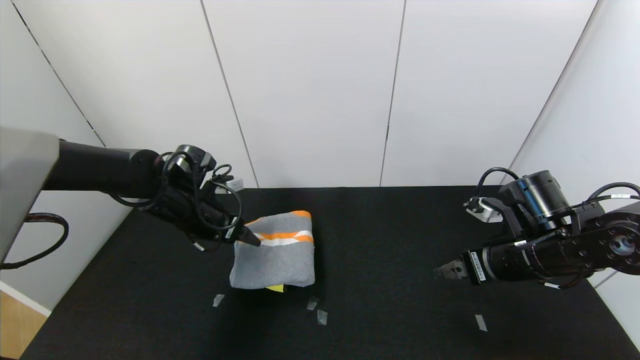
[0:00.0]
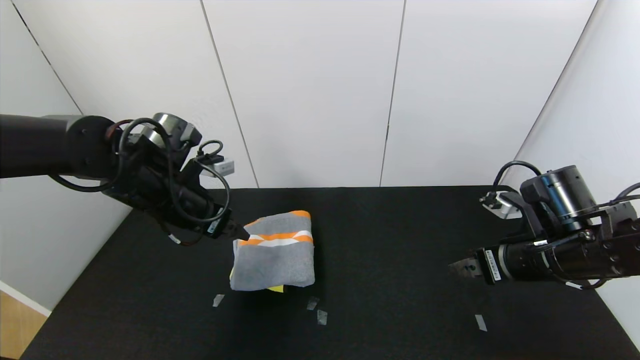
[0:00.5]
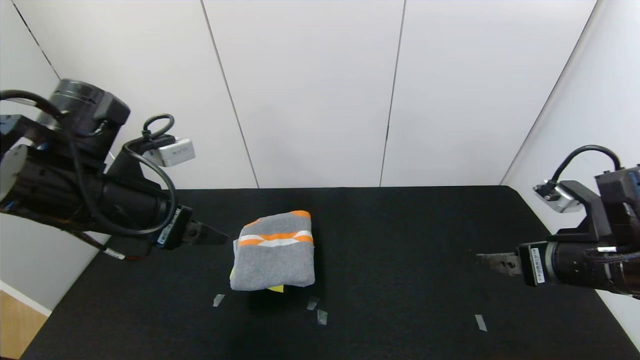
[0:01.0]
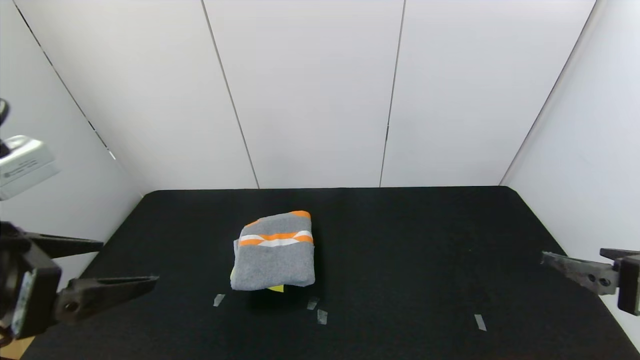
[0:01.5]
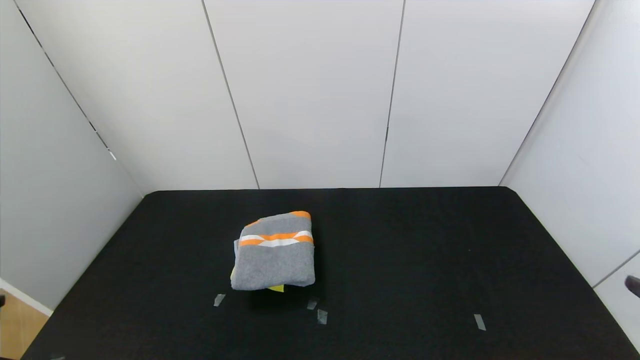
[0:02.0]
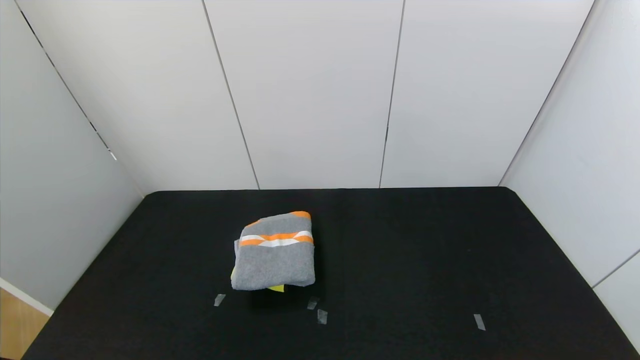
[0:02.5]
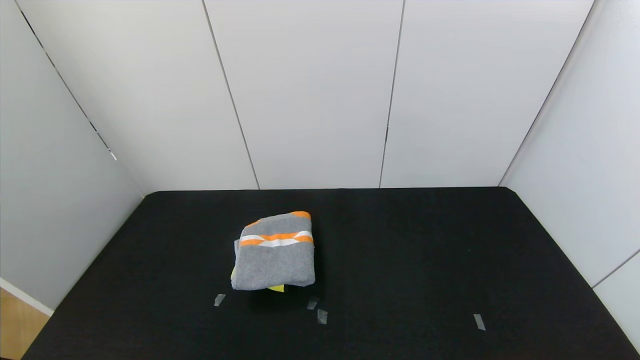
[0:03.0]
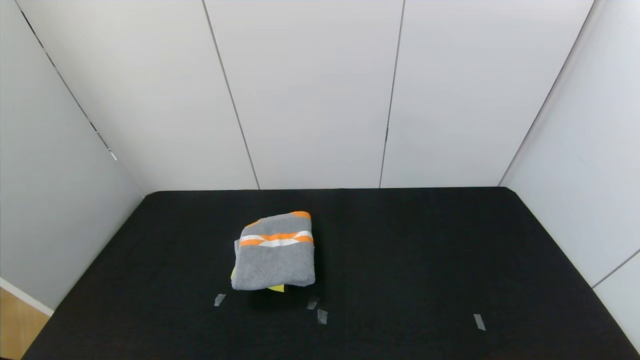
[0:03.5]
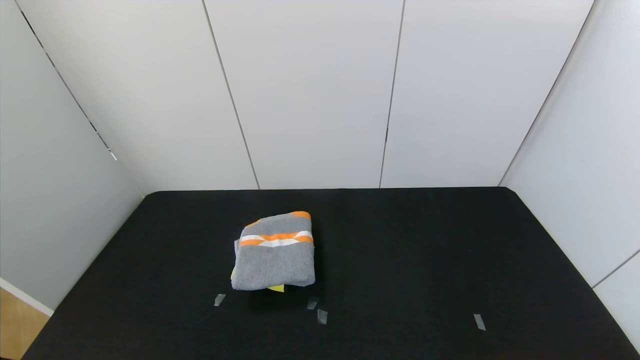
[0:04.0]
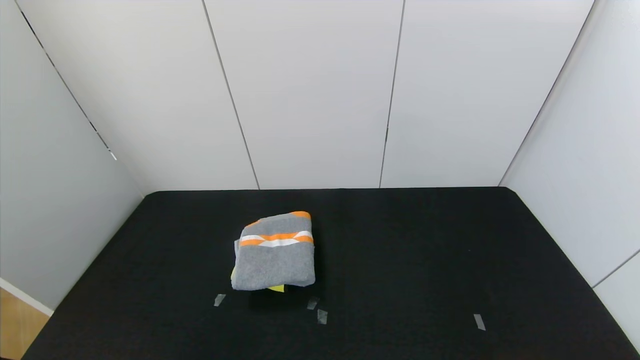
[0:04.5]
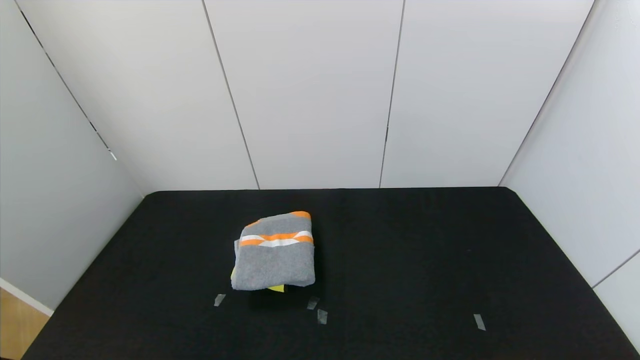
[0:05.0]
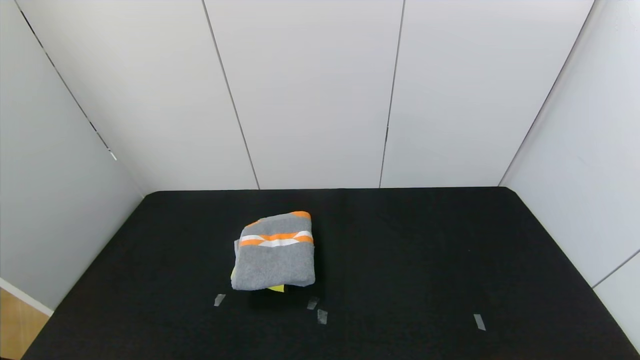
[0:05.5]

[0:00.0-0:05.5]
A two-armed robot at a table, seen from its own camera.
Task of the whole recording: Use the gripper to fold the yellow towel and grey towel in half twice,then put the yellow towel on the grey towel.
0:00.0 to 0:02.0: The left gripper travels backward by some 35 cm. The right gripper travels backward by approximately 25 cm.

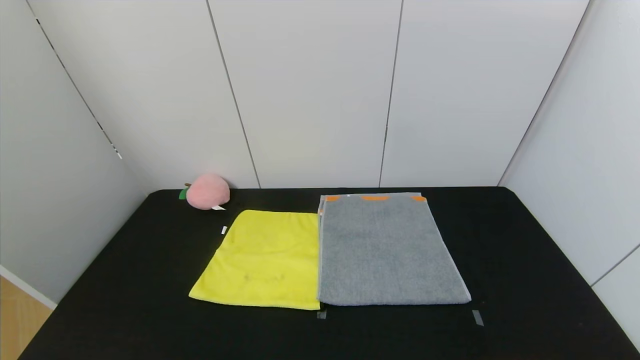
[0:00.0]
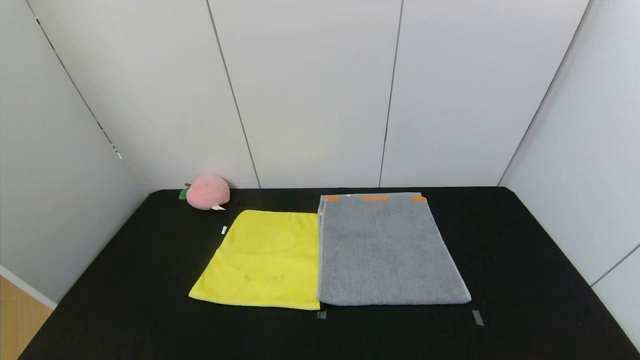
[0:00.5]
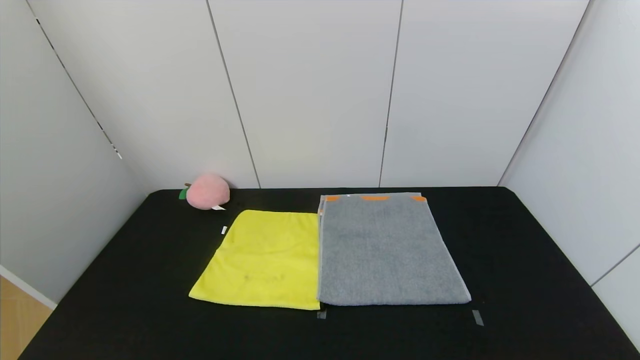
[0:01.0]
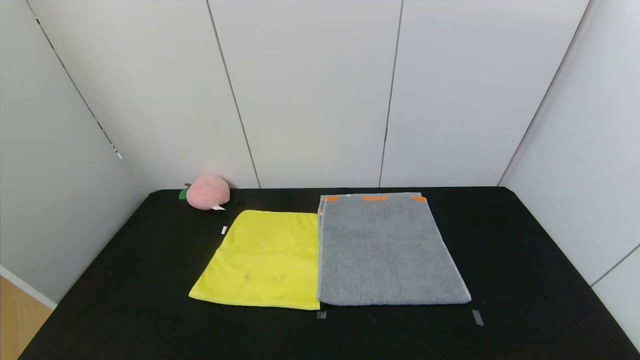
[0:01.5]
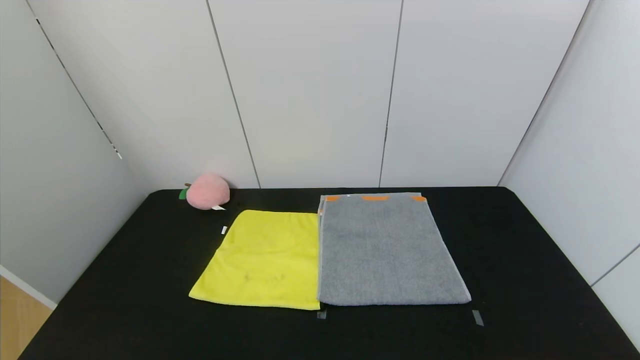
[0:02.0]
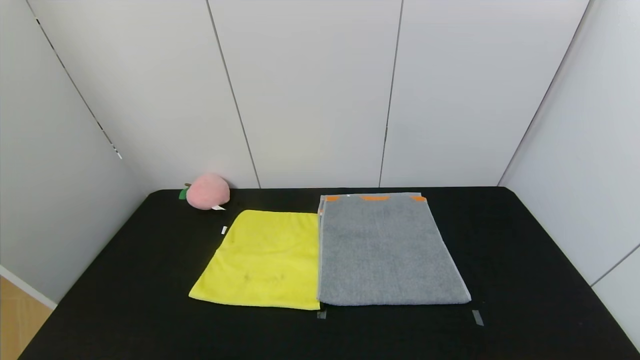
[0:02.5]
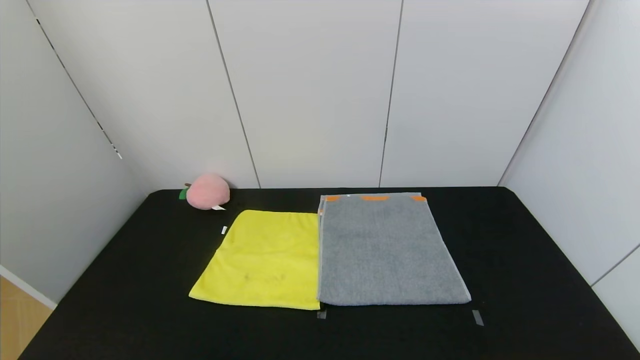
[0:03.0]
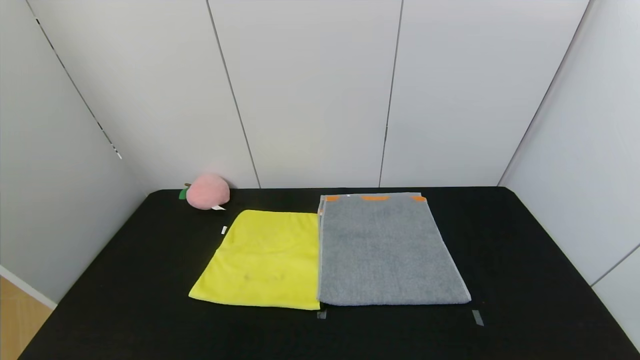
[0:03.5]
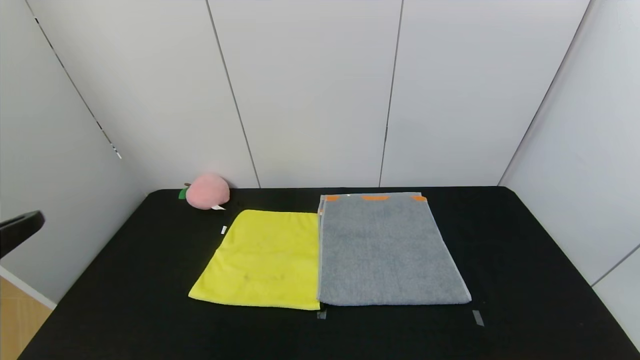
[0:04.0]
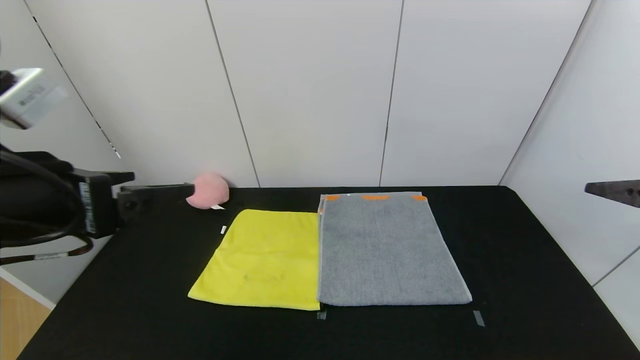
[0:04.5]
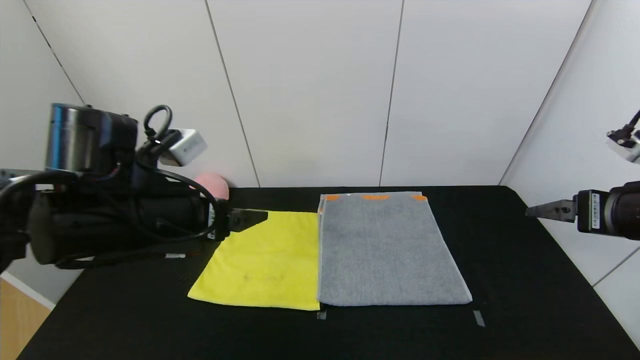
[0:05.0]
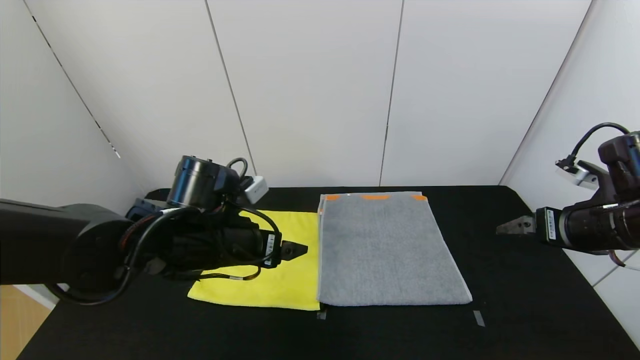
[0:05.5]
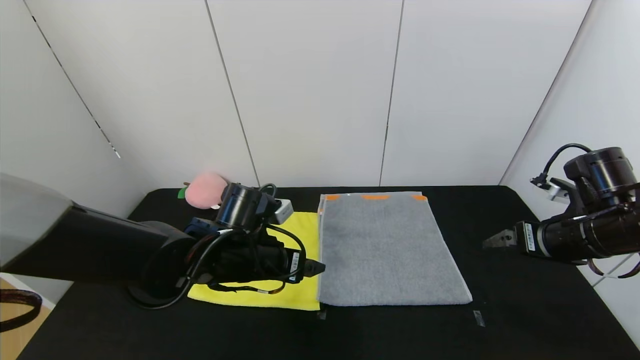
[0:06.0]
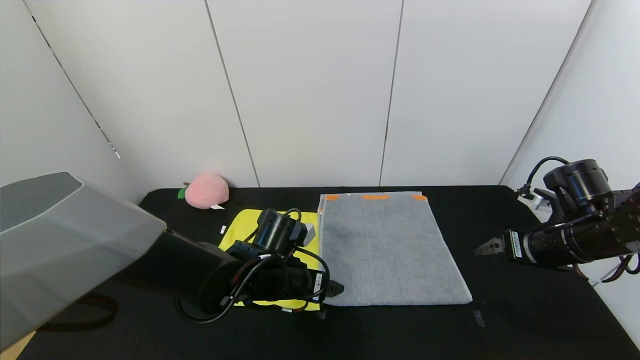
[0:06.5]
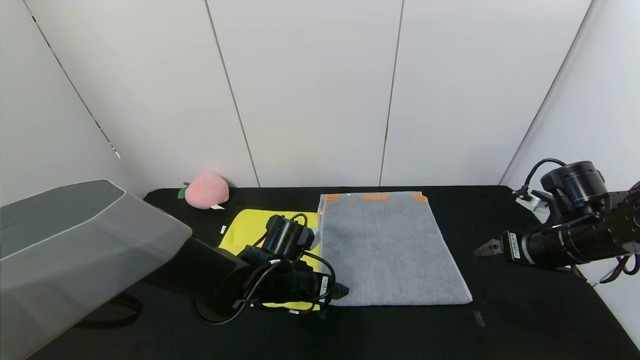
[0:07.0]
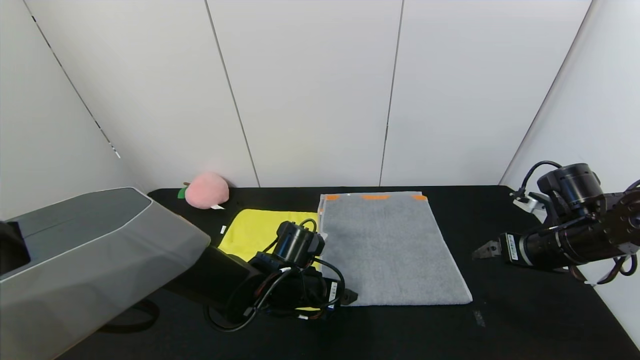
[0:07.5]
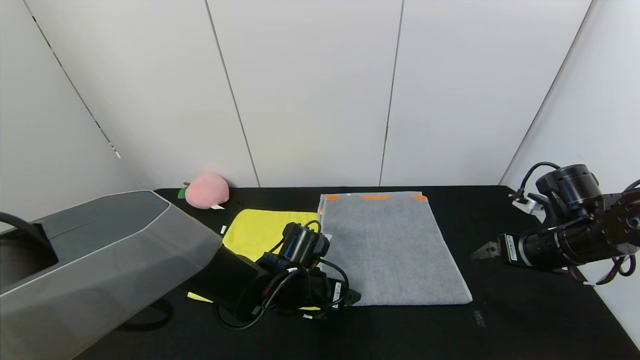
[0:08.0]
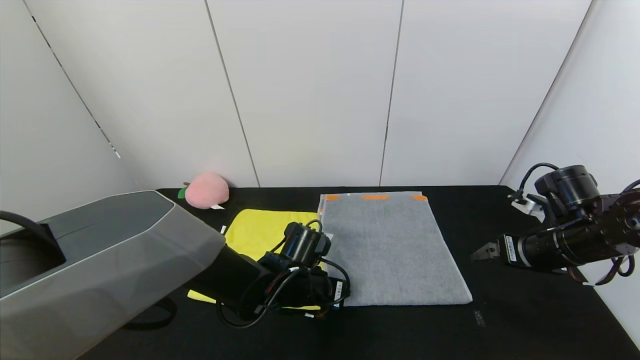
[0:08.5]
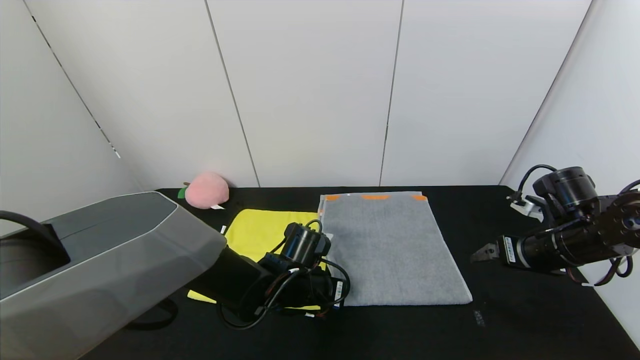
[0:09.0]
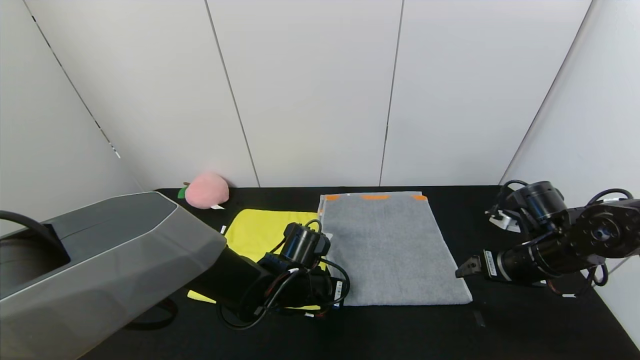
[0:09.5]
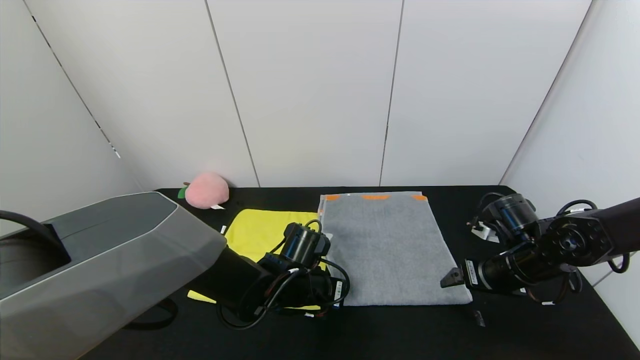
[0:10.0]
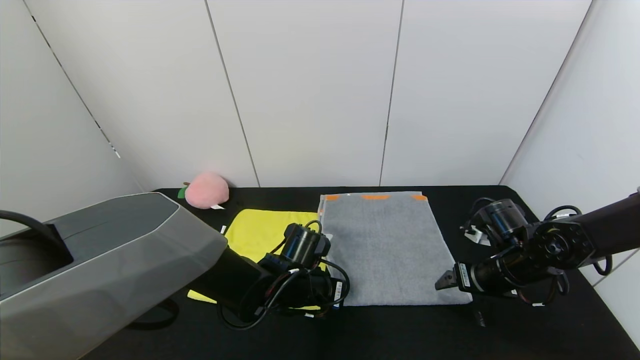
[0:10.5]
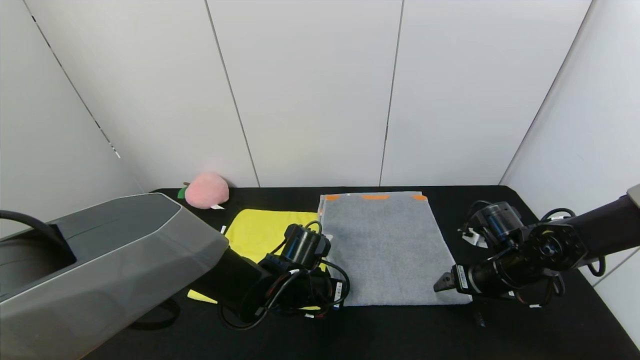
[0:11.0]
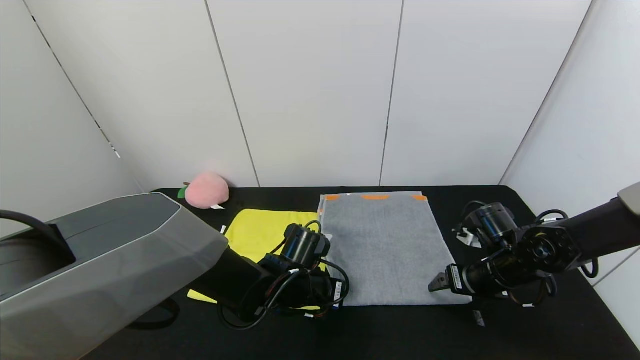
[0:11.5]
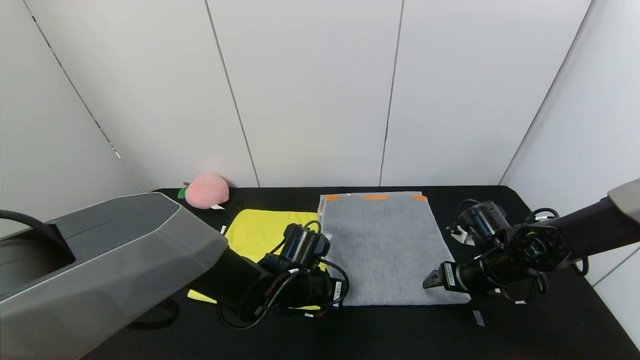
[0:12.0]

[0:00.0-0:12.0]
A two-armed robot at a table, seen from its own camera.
Task of the whole recording: Use the gripper to fold the yellow towel and grey towel in half twice,then put the yellow towel on the grey towel.
0:04.0 to 0:06.0: The right gripper goes some 25 cm forward and downward, while the left gripper travels forward, downward and to the right by about 35 cm.
0:06.0 to 0:08.0: The left gripper moves downward and to the right, approximately 10 cm.
0:08.0 to 0:10.0: The left gripper closes up, while the right gripper goes some 5 cm downward.
0:10.0 to 0:12.0: The grippers make only small movements.

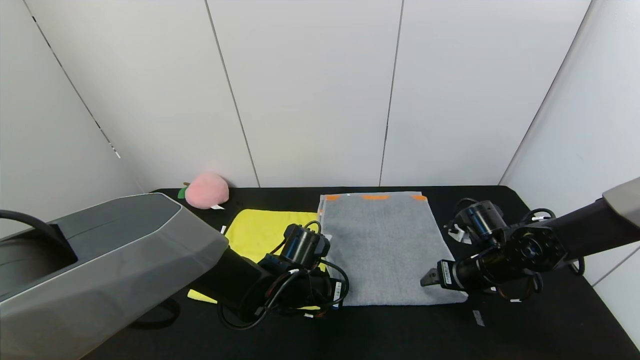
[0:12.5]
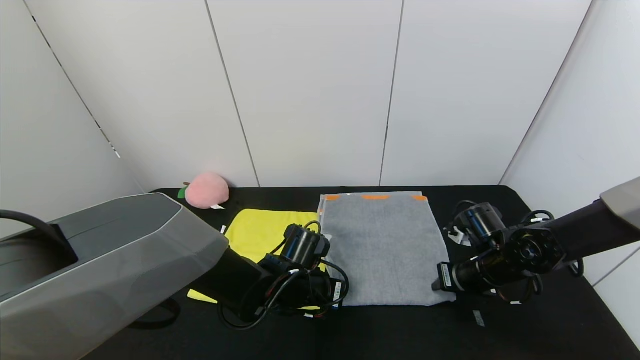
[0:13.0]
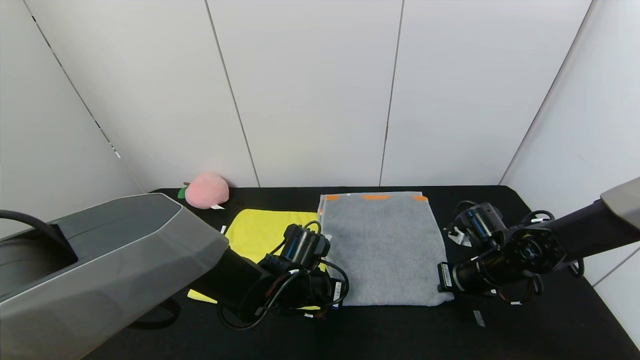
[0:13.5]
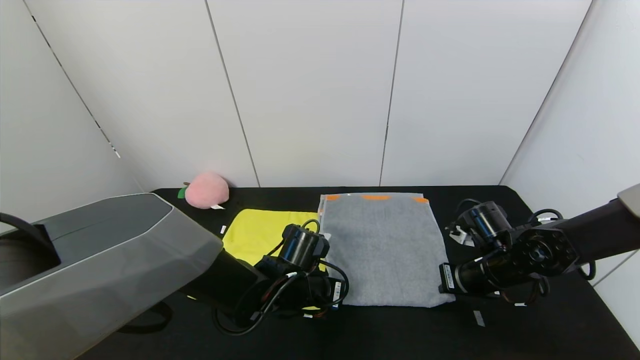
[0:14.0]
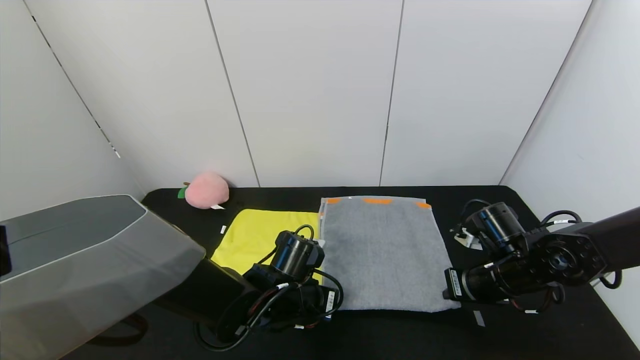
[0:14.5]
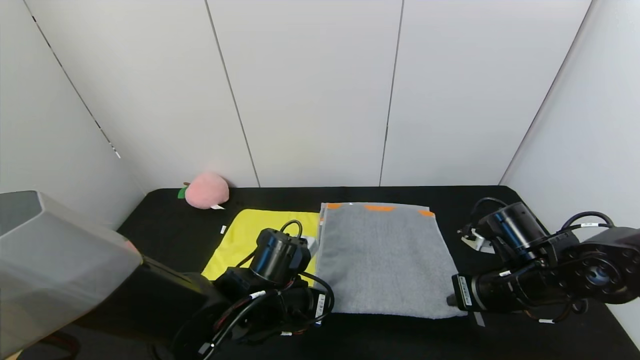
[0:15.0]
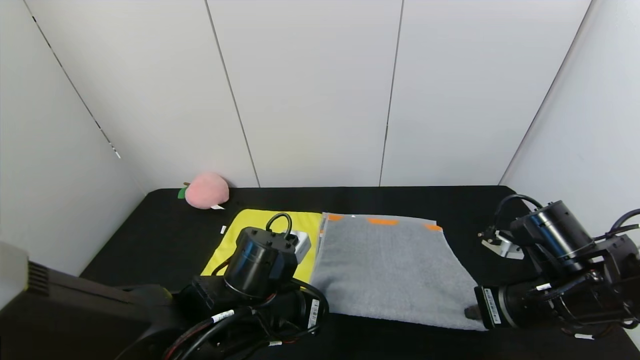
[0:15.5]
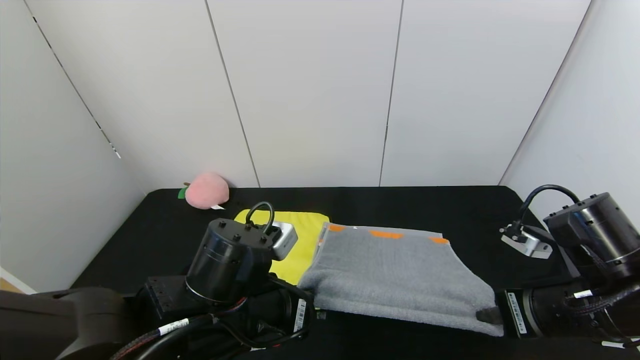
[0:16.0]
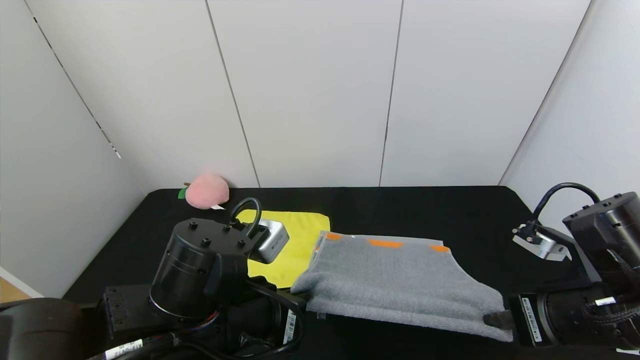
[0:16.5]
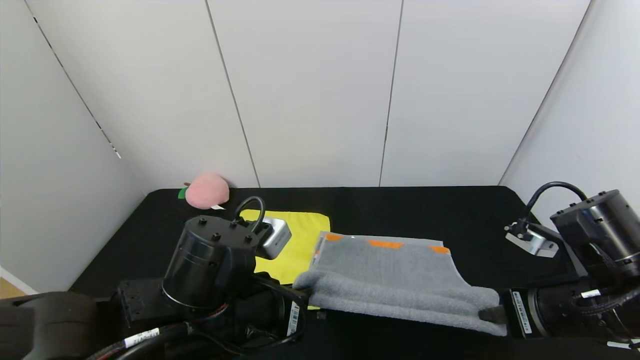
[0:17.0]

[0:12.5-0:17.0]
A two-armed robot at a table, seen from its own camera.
Task of the whole recording: Use the gripper to fold the yellow towel and grey towel in half twice,then put the yellow towel on the grey towel.
0:12.5 to 0:14.5: The right gripper closes.
0:14.5 to 0:17.0: The right gripper is displaced backward and upward by some 15 cm, while the left gripper heads upward and backward, covering approximately 15 cm.
